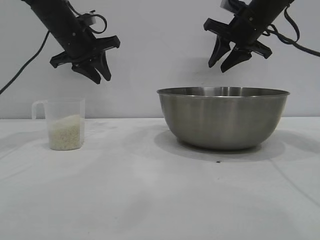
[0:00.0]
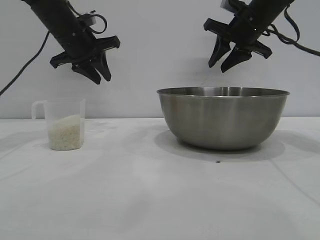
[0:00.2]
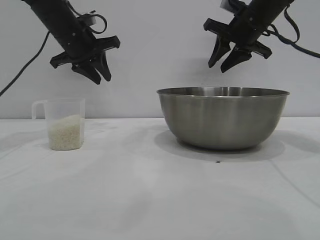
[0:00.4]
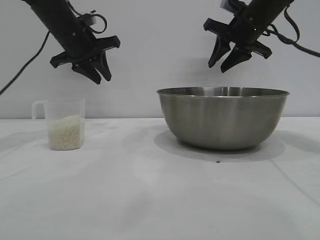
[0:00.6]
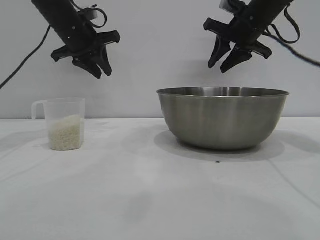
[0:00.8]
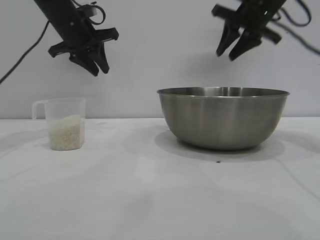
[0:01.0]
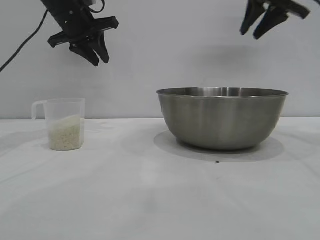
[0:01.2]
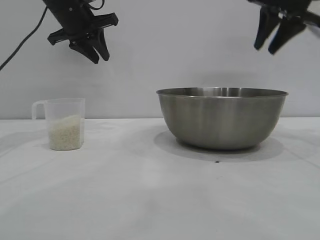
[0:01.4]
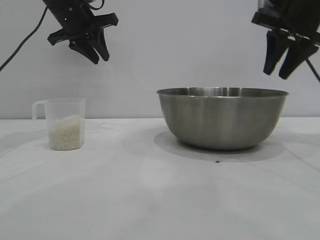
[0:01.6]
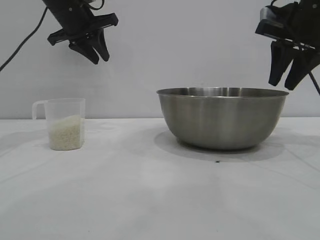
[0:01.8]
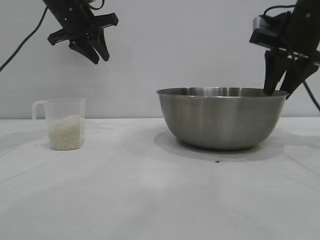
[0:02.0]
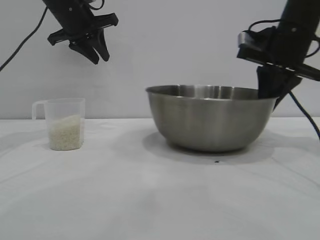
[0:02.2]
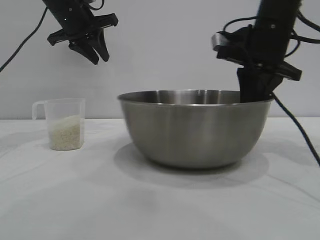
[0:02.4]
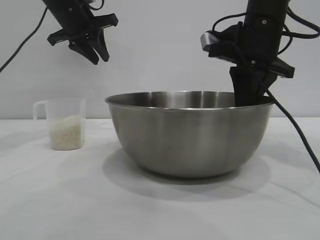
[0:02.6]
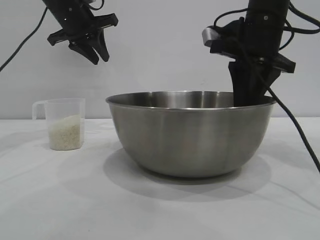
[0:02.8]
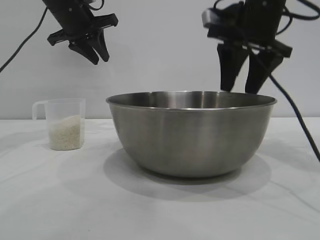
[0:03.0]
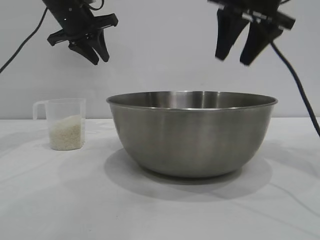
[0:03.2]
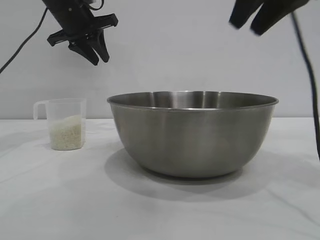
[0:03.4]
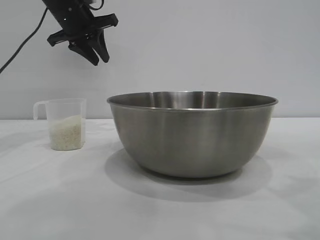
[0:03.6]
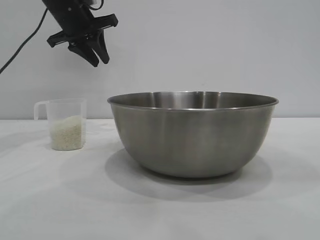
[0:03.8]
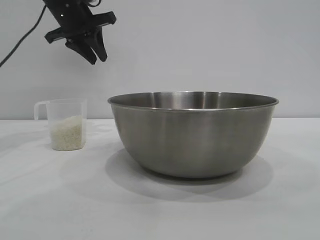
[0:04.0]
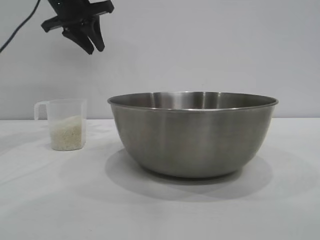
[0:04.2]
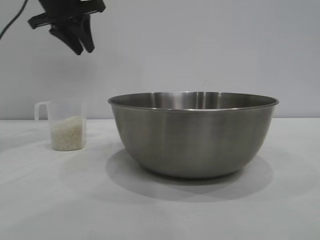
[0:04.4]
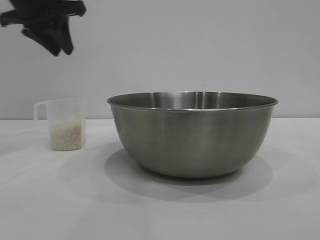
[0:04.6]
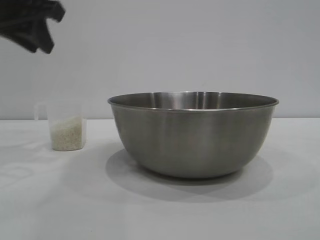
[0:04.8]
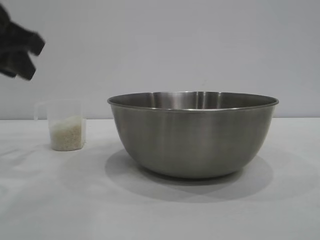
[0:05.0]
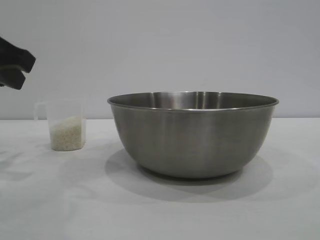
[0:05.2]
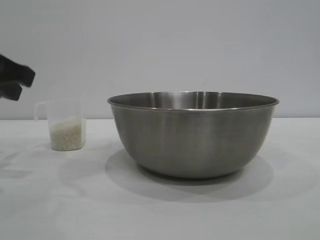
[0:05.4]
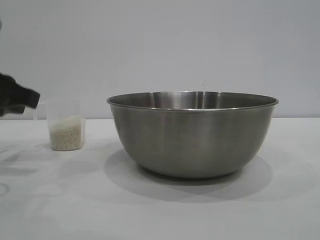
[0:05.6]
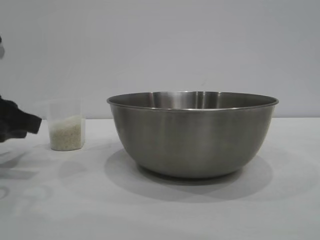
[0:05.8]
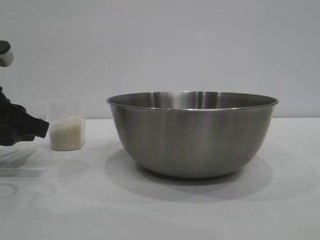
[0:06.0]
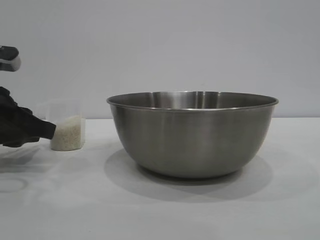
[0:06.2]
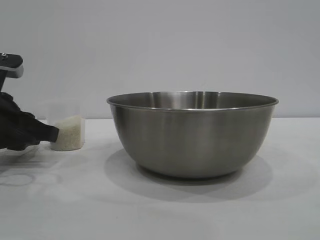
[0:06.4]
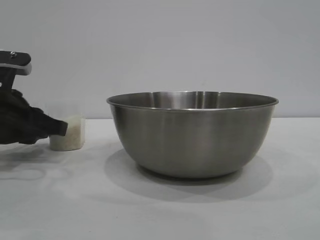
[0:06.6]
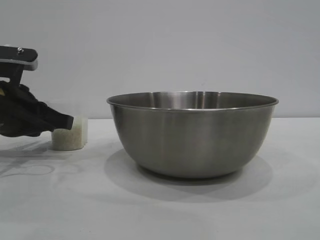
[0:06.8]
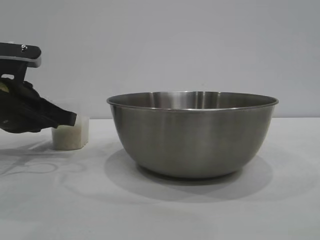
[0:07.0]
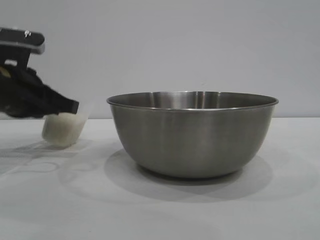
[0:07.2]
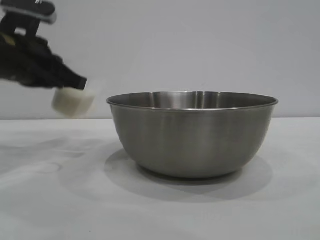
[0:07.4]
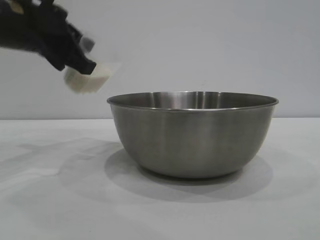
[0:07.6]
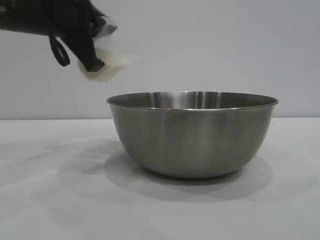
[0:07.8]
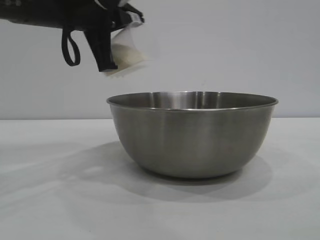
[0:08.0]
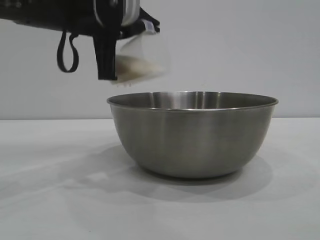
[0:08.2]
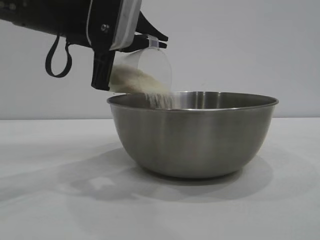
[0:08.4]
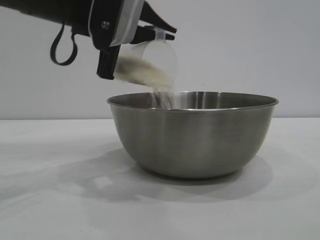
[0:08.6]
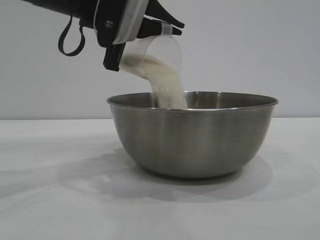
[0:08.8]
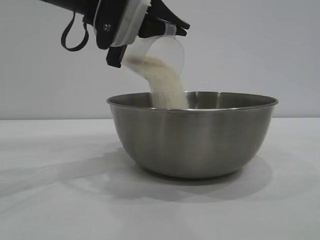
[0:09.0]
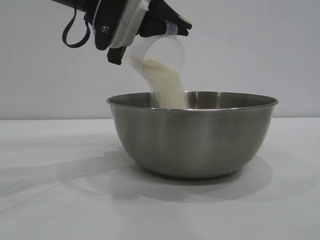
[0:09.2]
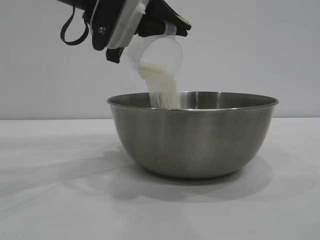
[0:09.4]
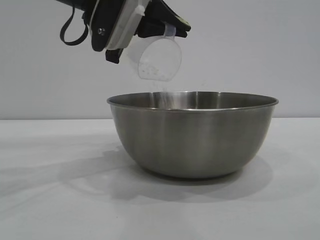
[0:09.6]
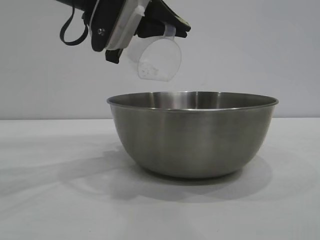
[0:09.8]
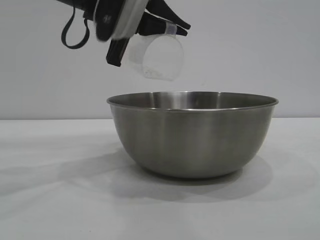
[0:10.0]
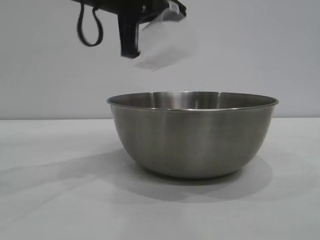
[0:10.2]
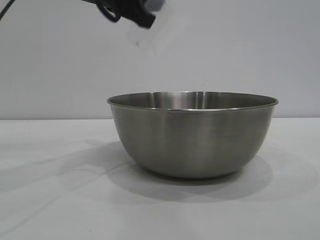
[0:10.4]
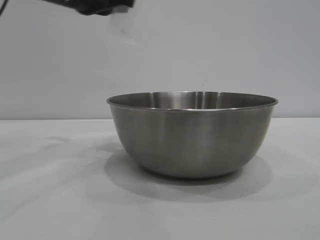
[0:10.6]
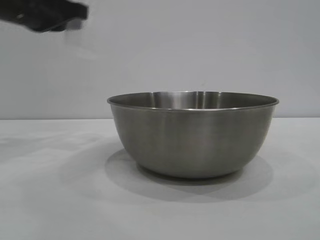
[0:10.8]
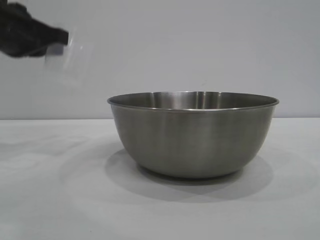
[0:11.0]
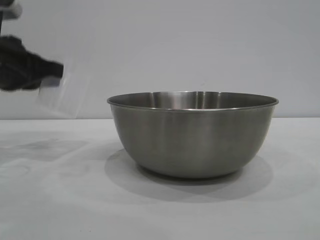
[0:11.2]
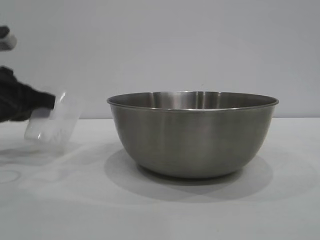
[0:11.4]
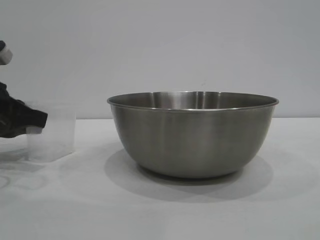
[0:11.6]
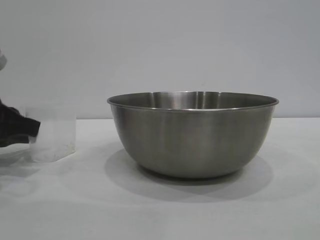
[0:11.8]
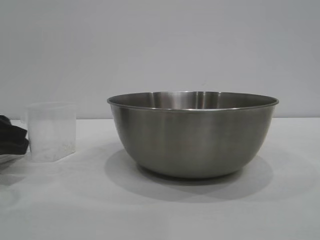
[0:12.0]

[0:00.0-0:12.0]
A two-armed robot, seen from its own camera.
Task of the whole recording: the right gripper grasp the rice container and place it in the center of the table, the left gripper grasp the rice scoop and pour the rice into the rice container.
Step, 0:00.0 to 0:03.0: Move the bowl to the center of view with the right gripper.
Step, 0:03.2 to 0:07.4: Pick up the cup with rice in it with the left gripper.
Step, 0:07.6 to 0:10.0: Pour the rice from the cup into the bowl with the left gripper.
